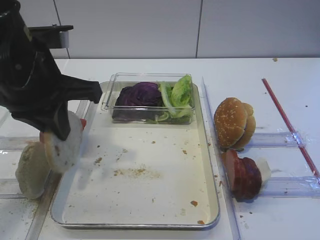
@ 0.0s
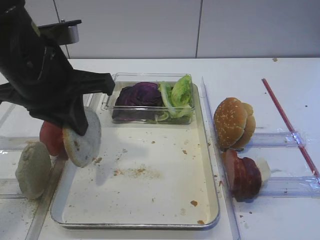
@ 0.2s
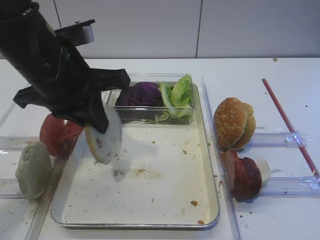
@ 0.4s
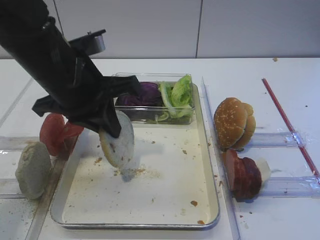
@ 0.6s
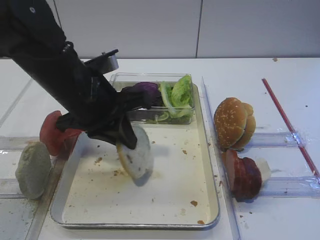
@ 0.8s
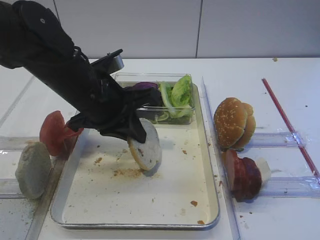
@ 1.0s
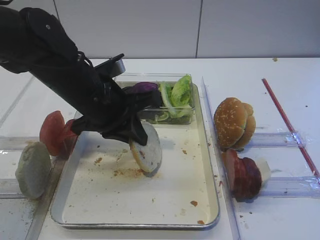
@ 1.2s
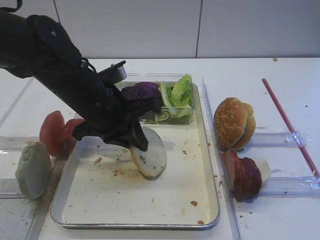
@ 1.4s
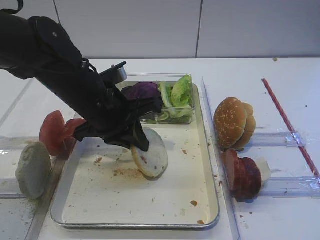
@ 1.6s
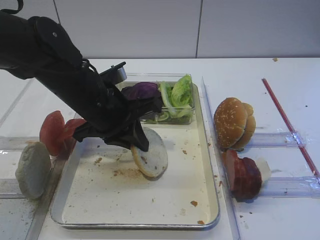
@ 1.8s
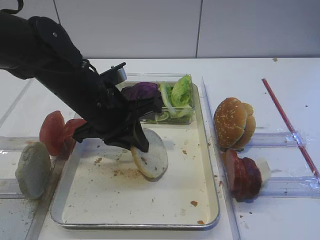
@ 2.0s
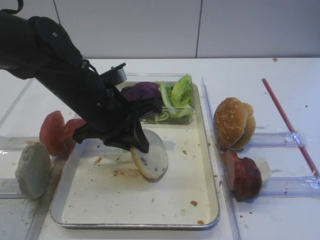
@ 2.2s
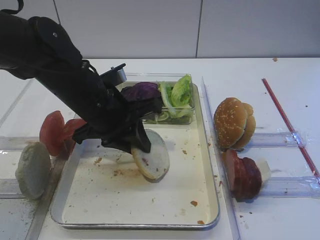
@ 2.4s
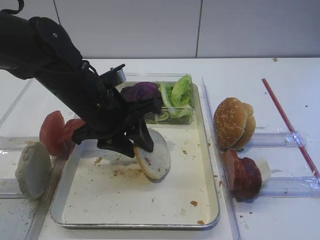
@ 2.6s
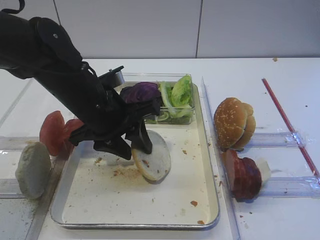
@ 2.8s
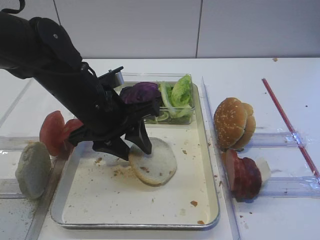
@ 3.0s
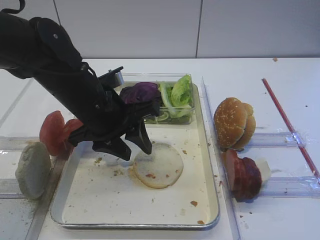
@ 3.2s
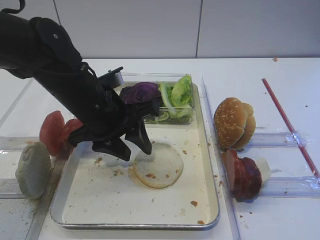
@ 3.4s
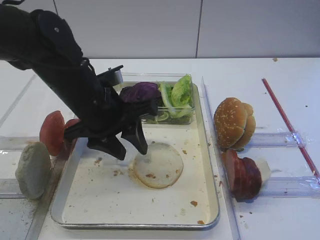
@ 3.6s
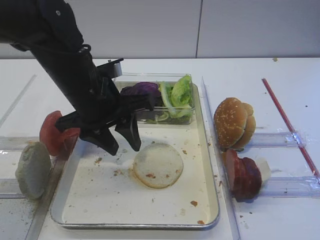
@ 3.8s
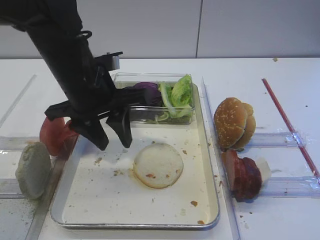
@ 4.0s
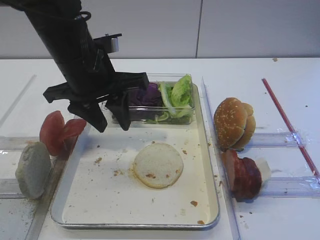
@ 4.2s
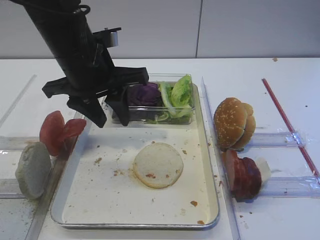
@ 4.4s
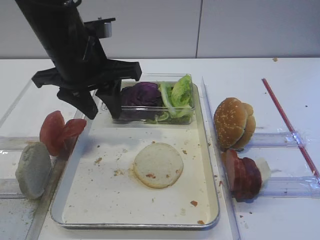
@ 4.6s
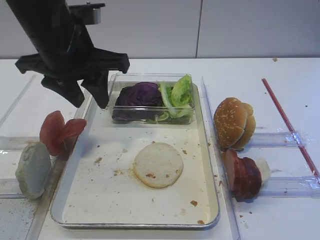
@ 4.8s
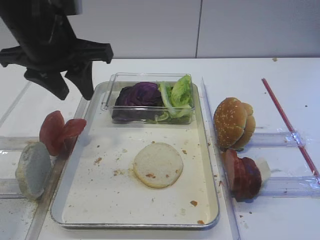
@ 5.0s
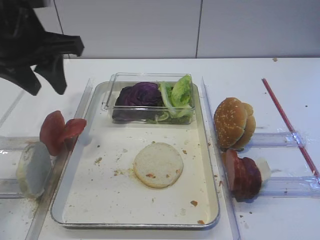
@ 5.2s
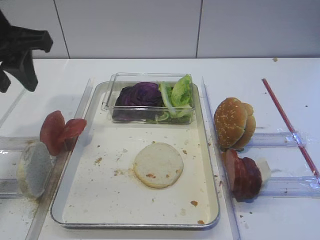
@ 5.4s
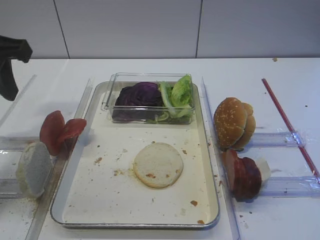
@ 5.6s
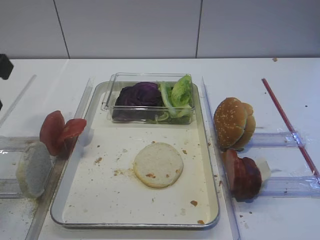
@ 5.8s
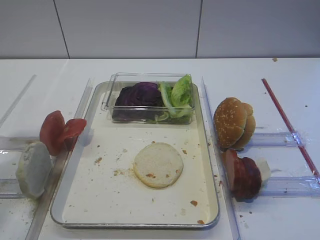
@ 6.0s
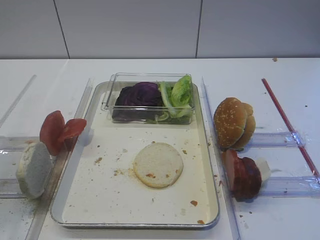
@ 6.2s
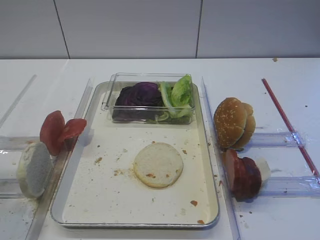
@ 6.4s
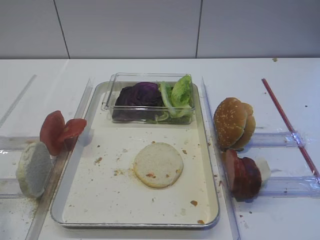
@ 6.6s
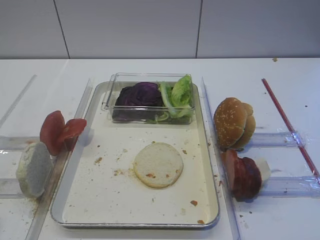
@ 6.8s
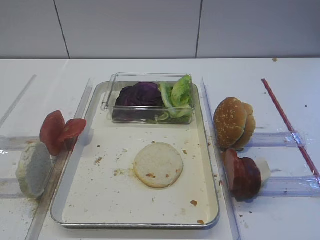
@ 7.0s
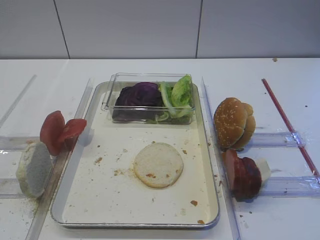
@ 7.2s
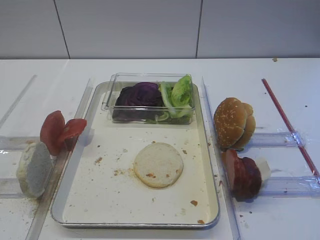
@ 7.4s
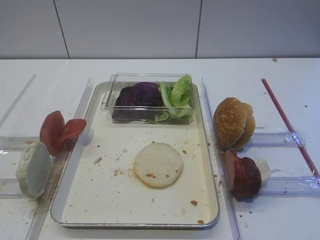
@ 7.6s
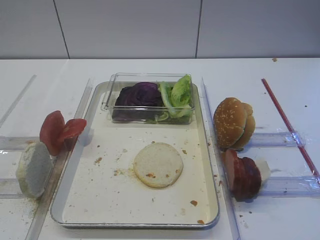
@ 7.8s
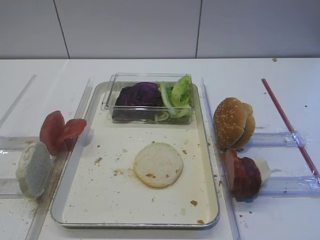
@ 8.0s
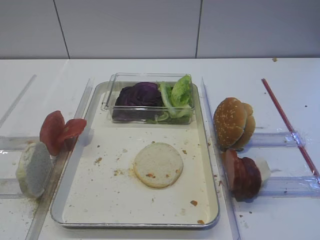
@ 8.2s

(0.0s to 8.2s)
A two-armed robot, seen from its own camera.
Step, 0.0s - 4.0s: Place the bread slice on the tray with the left gripper.
0.0s - 1.6s: The left gripper moves downward and to the right, about 10 cm.
1.6s - 3.2s: The left gripper opens its fingers.
3.2s - 5.0s: The left gripper moves upward and to the left, approximately 10 cm.
5.0s - 6.6s: The left gripper heads backward and to the left, covering some 30 cm.

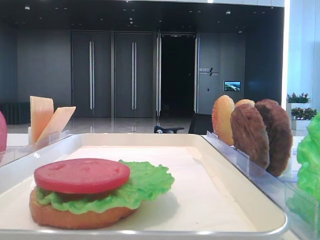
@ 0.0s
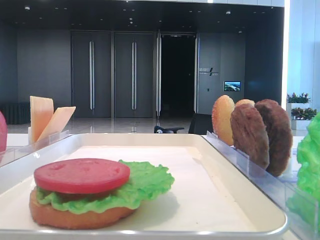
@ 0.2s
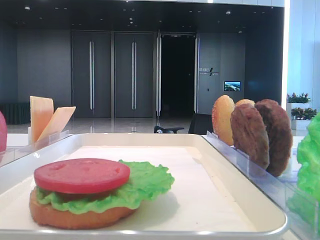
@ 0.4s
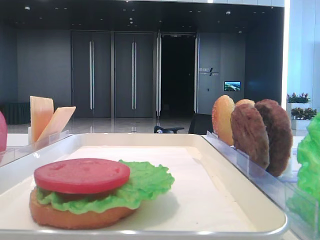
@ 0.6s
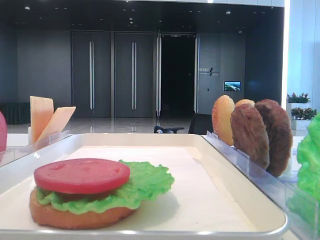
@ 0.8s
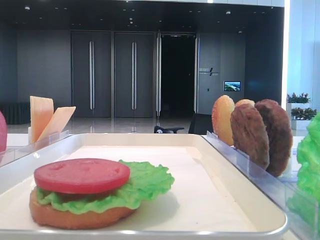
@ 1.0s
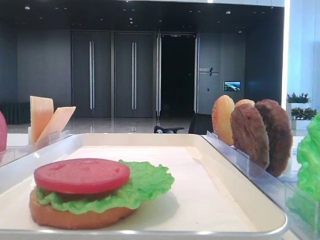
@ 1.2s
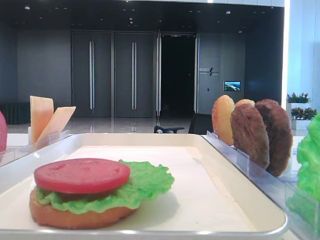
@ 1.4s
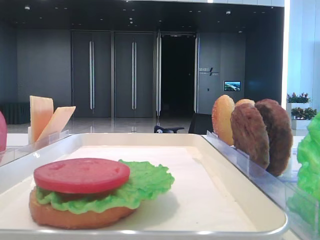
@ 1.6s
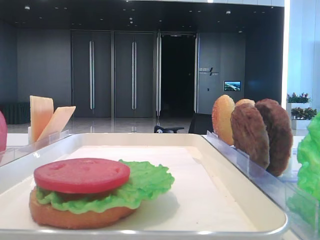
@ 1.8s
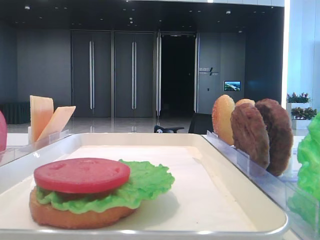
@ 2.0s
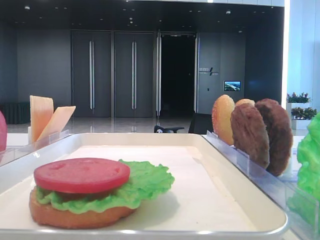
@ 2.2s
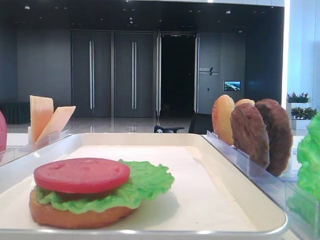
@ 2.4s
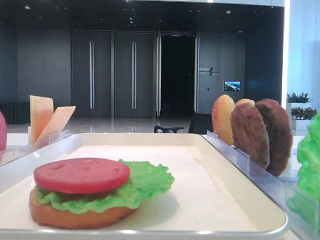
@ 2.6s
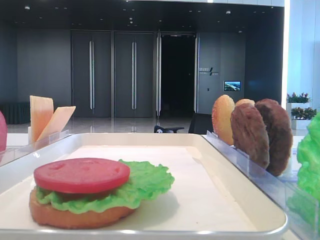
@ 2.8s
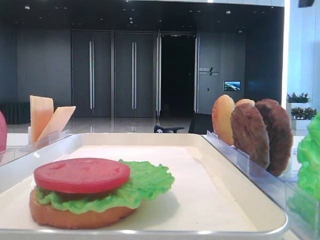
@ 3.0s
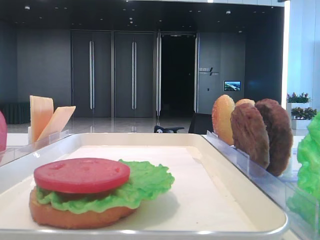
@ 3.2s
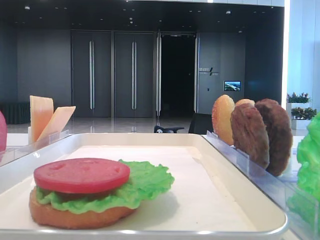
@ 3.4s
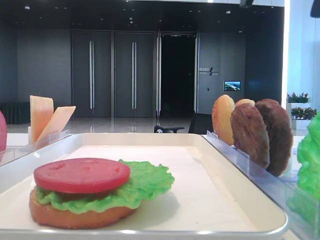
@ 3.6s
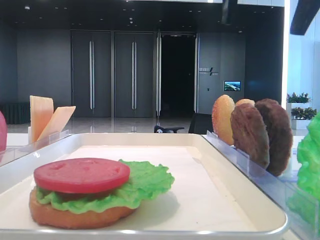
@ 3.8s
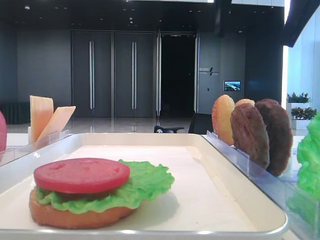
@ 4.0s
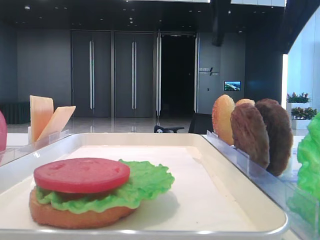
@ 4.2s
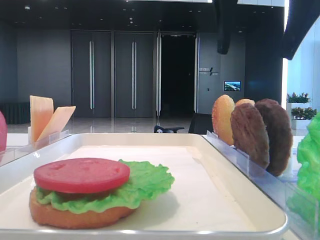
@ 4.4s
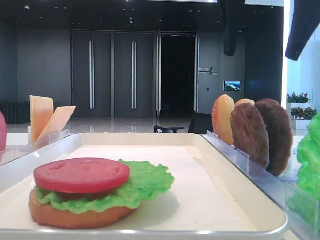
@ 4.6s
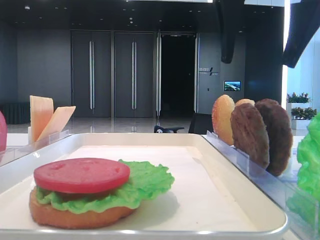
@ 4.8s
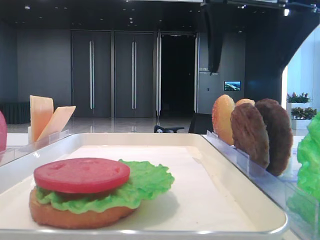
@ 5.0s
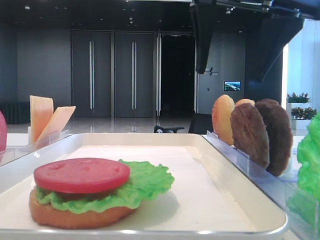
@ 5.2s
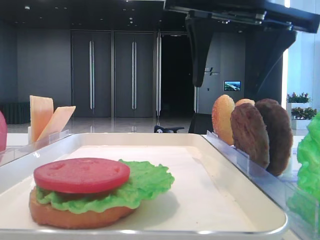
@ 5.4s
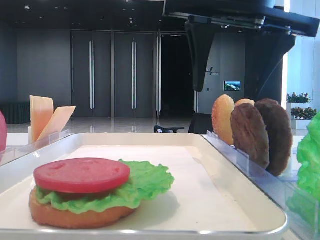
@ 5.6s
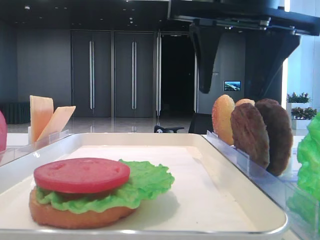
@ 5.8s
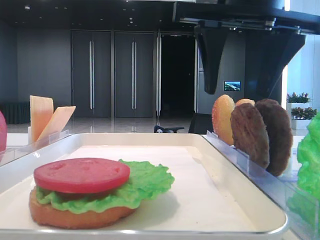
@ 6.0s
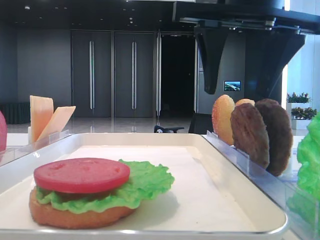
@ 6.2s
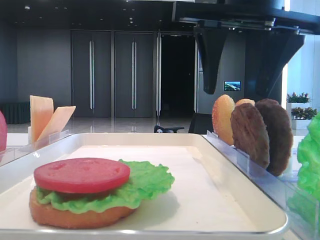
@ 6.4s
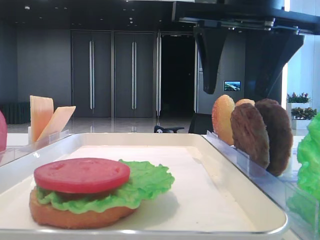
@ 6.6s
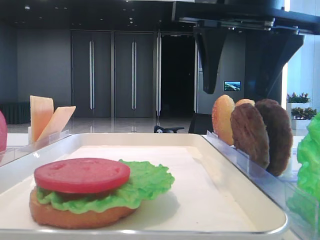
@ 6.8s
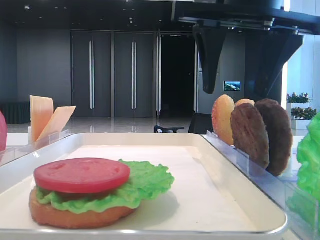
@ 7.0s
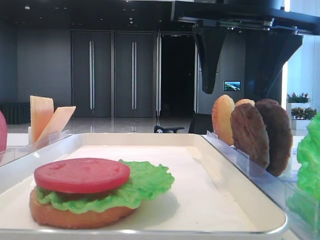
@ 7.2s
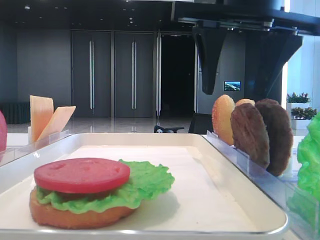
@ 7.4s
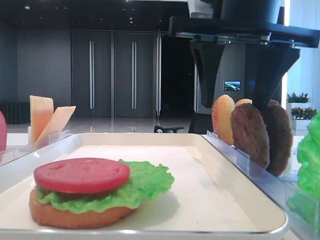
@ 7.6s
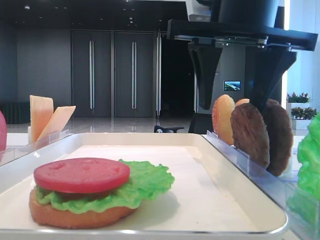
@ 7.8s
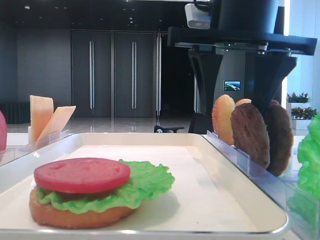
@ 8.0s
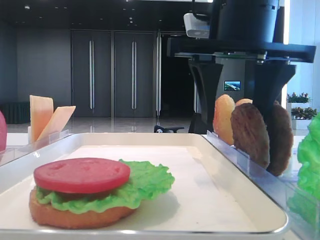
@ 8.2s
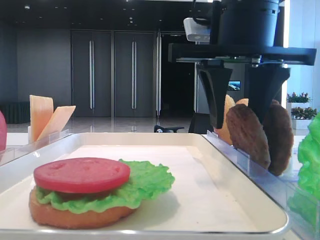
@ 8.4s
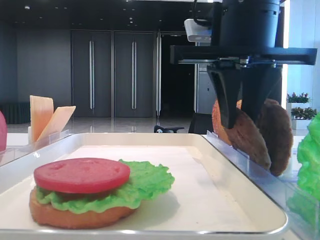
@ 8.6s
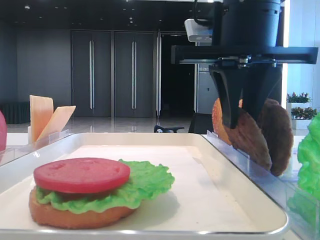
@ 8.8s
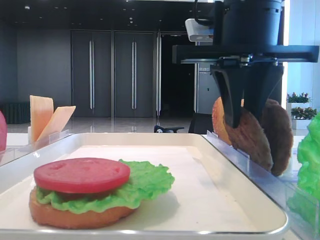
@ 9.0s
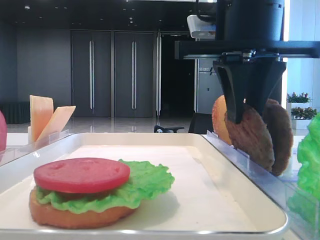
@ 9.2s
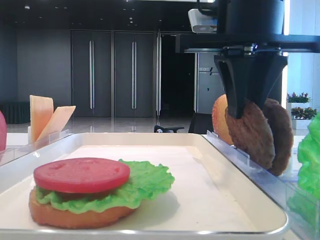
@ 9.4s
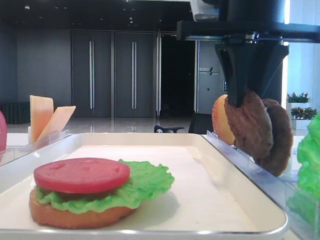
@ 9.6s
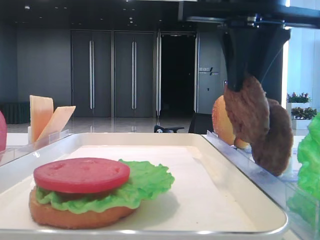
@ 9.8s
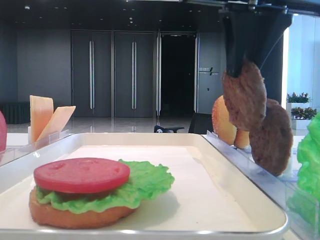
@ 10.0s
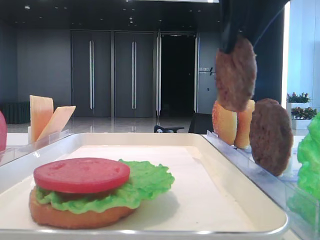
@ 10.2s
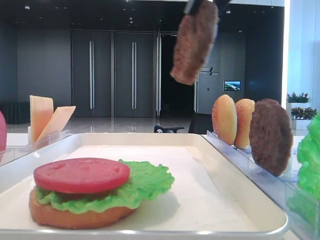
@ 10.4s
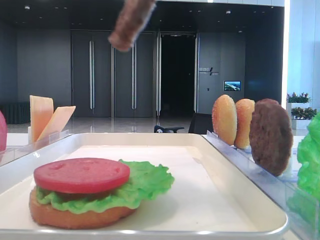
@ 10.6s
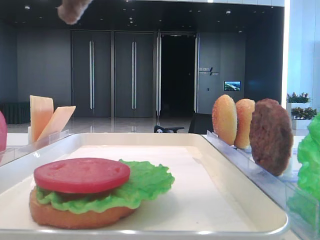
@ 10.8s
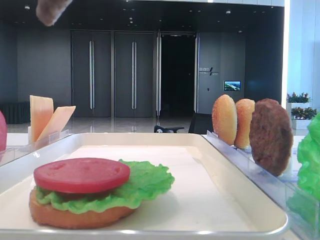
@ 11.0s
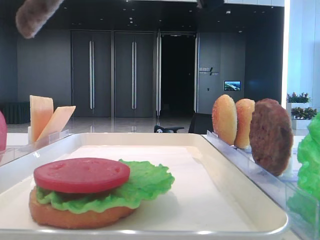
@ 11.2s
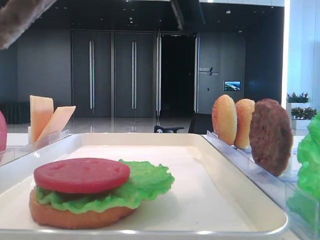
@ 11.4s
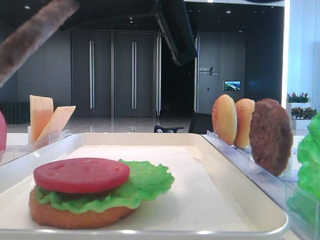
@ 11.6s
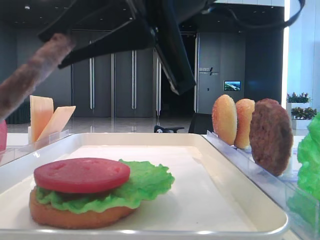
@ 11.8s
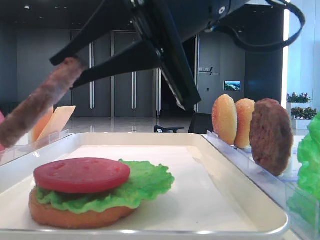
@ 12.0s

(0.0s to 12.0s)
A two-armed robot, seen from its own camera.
Step, 0.0s - 8.8s: Grab the patty with the right hand.
3.0s - 4.4s: The right gripper moves to the left, roughly 10 cm.
4.4s - 6.0s: The grippers move only a little.
6.0s - 7.6s: Neither gripper changes place.
7.6s - 9.0s: The right gripper closes up.
9.0s - 10.4s: The right gripper is displaced upward by about 10 cm.
10.4s - 12.0s: The right gripper shifts some 10 cm downward and to the left.

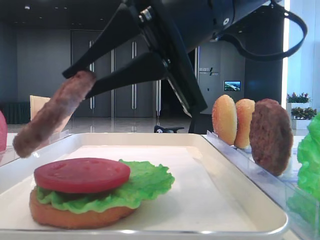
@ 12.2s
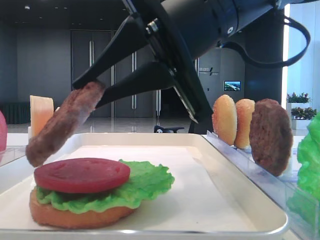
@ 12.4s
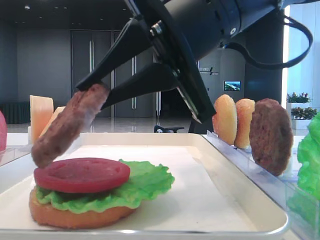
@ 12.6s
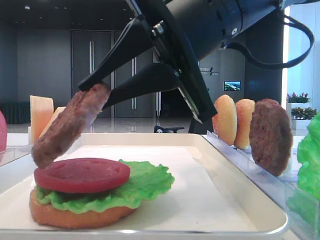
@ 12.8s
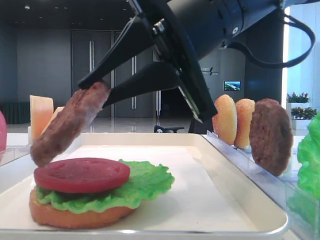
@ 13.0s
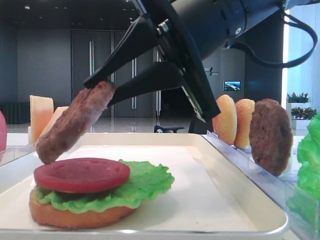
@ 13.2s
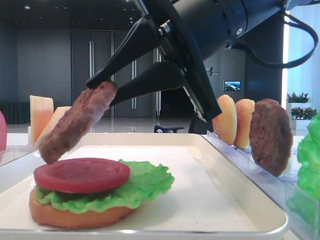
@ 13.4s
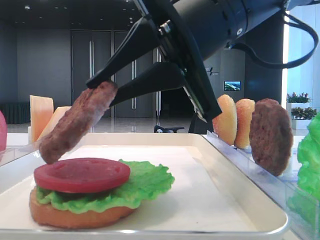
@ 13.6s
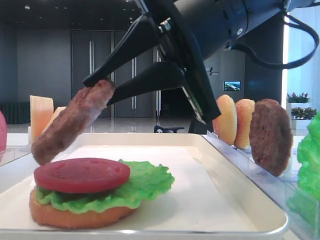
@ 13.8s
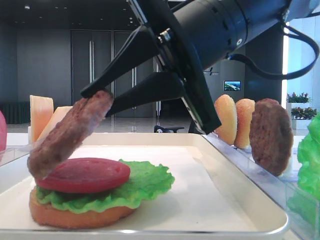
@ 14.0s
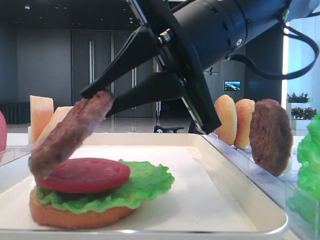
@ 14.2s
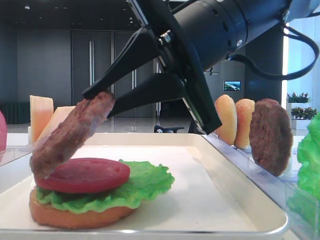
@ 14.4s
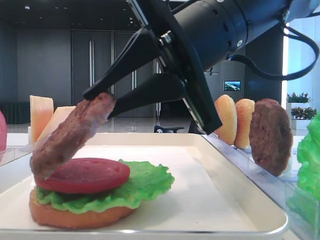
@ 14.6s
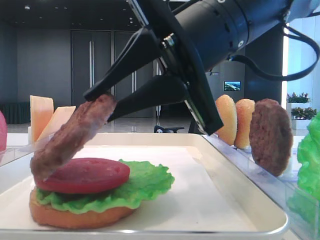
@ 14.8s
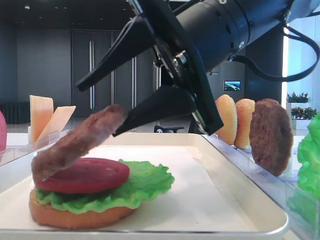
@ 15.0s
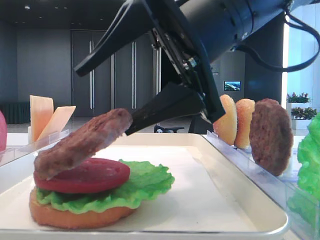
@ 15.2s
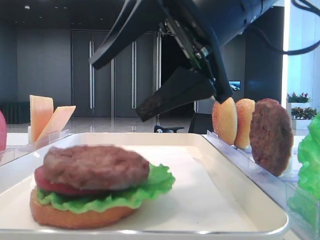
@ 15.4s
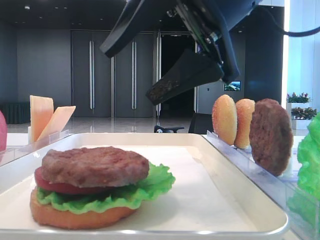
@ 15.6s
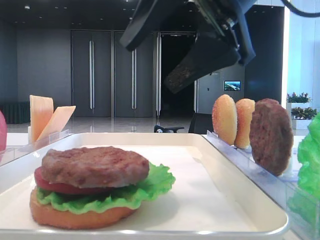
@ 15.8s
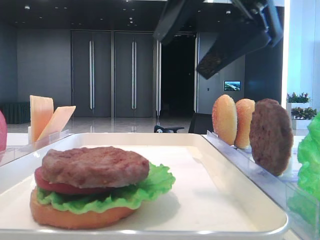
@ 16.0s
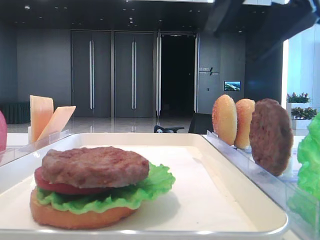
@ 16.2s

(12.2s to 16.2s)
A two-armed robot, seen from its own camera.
Step, 12.2s - 15.2s: Place the patty on the tomato slice with the right hand.
12.2s - 13.6s: The grippers move only a little.
13.6s - 14.8s: Neither gripper changes place.
14.8s - 16.2s: The right gripper is displaced upward and to the right by some 15 cm, and opens its fingers.
